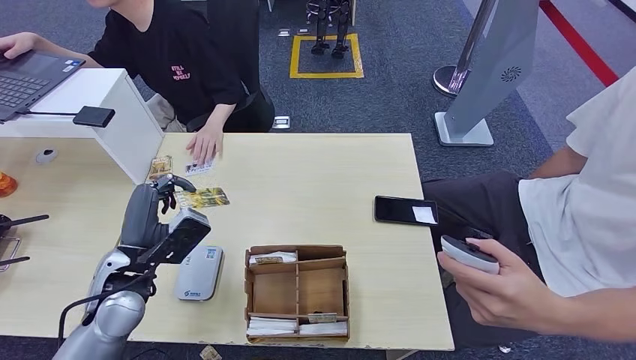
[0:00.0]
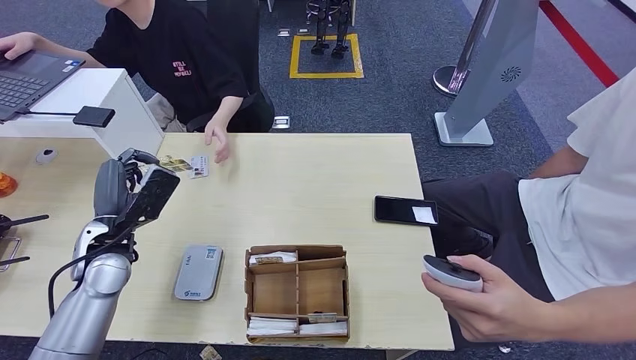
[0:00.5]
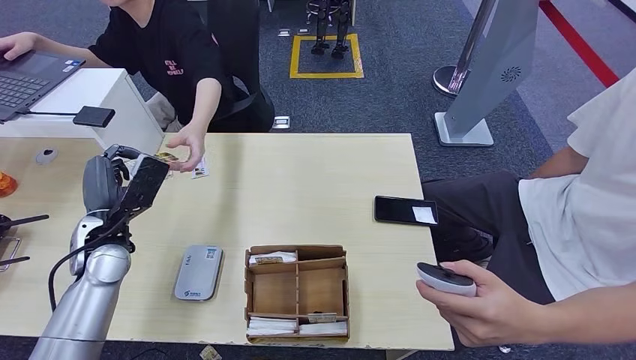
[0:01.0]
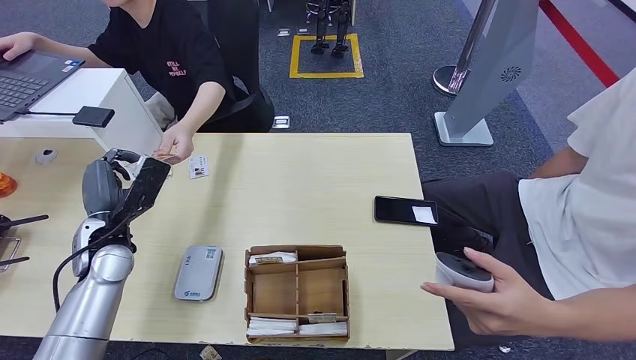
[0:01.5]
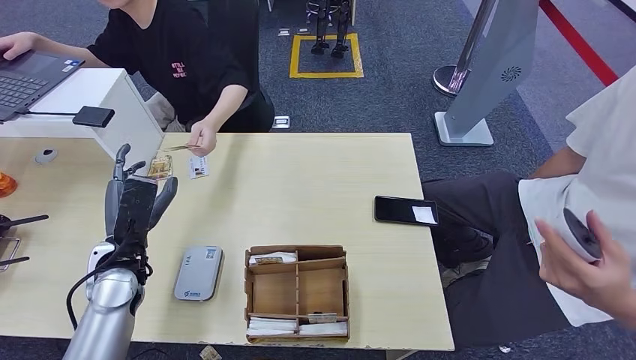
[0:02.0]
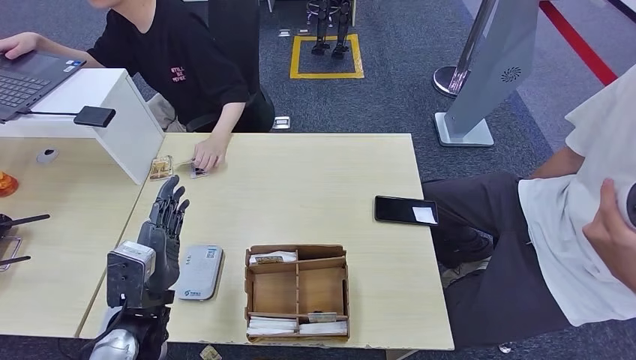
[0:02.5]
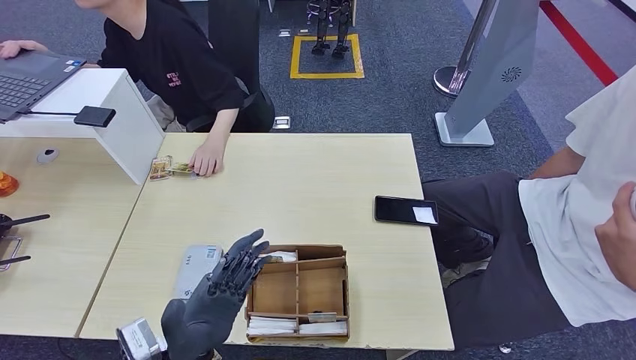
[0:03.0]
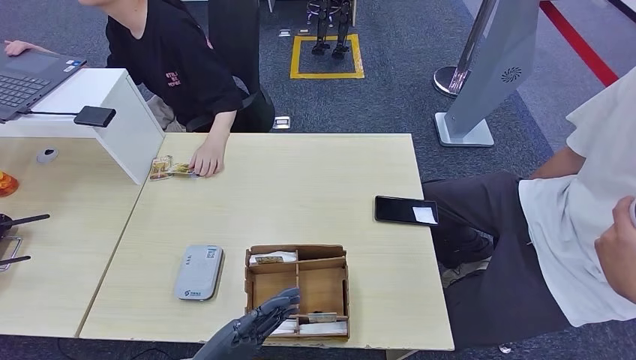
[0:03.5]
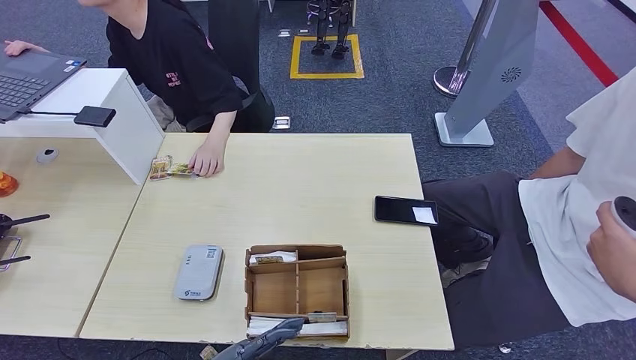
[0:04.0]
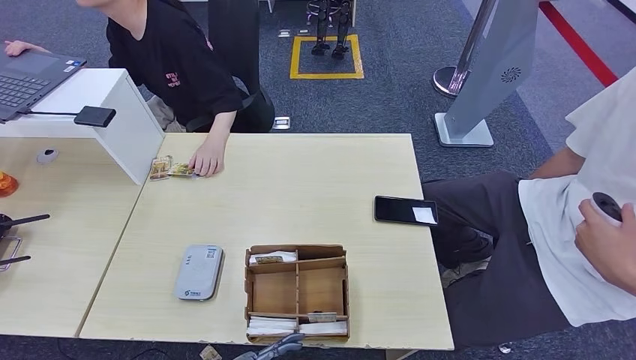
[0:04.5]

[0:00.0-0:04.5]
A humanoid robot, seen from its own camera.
Step, 0.0 to 4.5 s: Hand the room key to the person.
2.0 to 4.5 s: The left hand moves backward and to the right, some 20 cm.

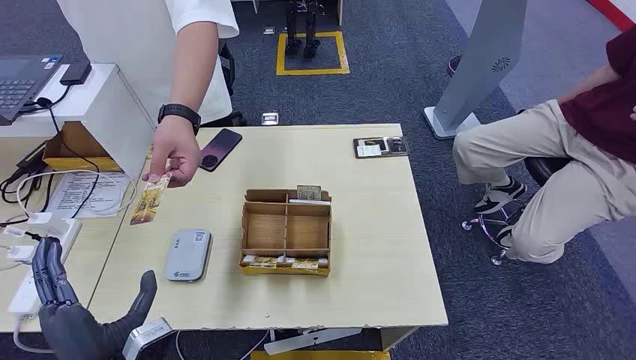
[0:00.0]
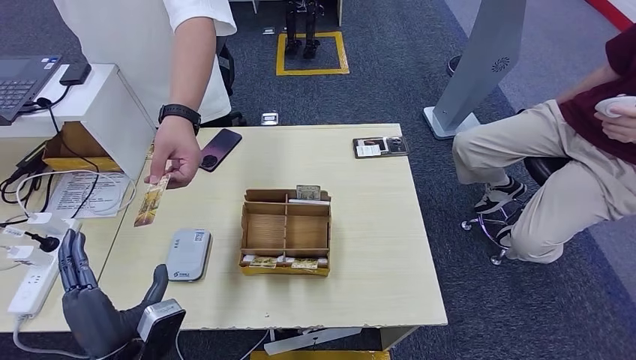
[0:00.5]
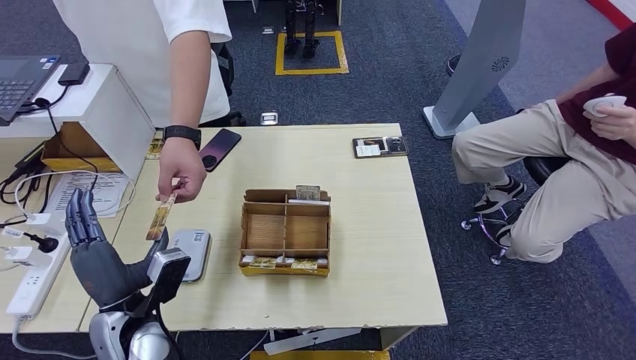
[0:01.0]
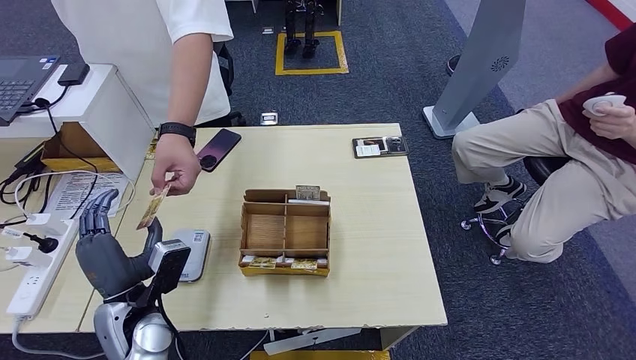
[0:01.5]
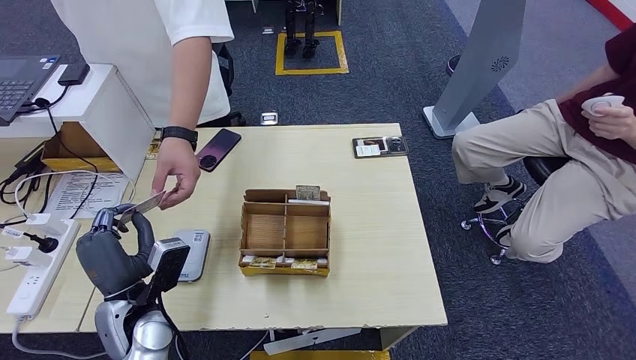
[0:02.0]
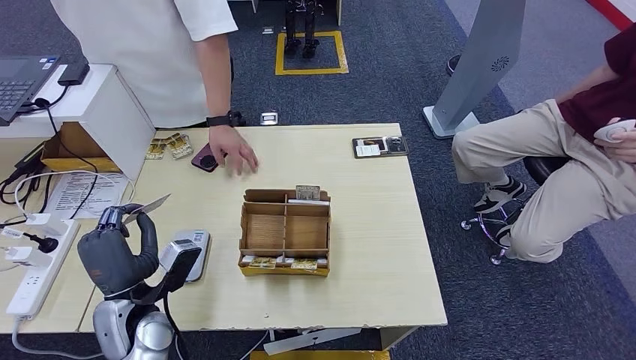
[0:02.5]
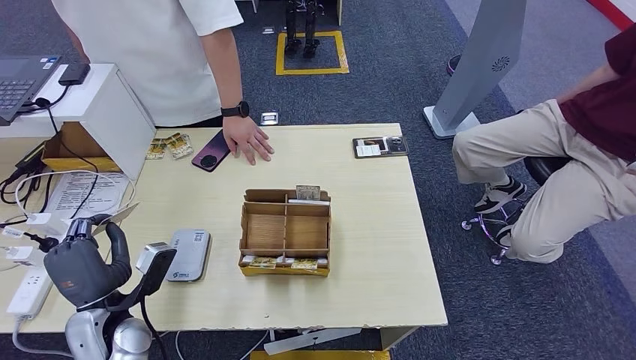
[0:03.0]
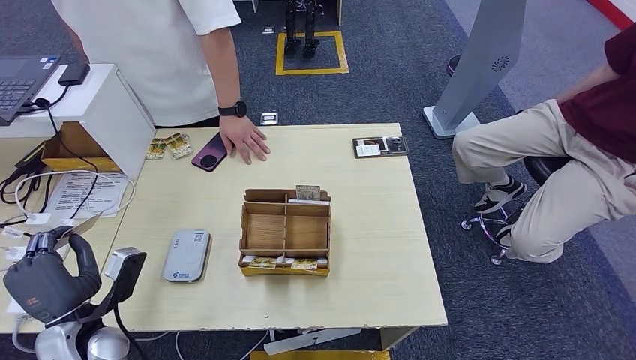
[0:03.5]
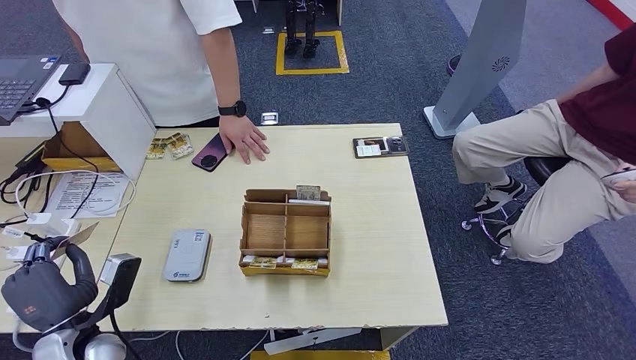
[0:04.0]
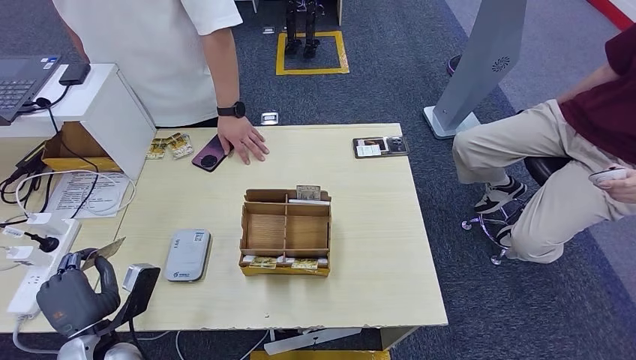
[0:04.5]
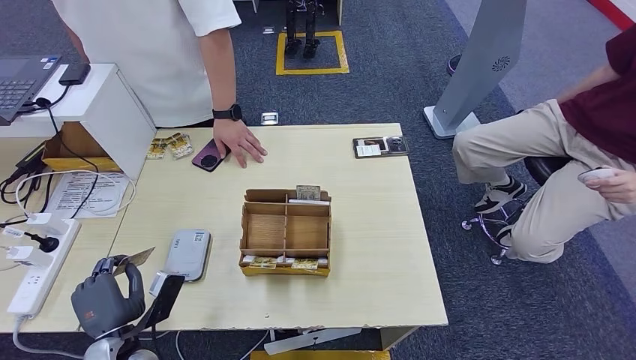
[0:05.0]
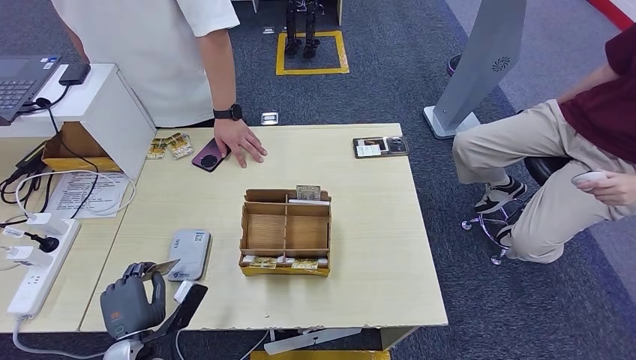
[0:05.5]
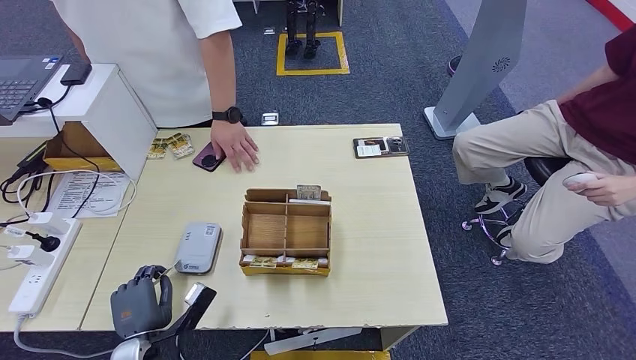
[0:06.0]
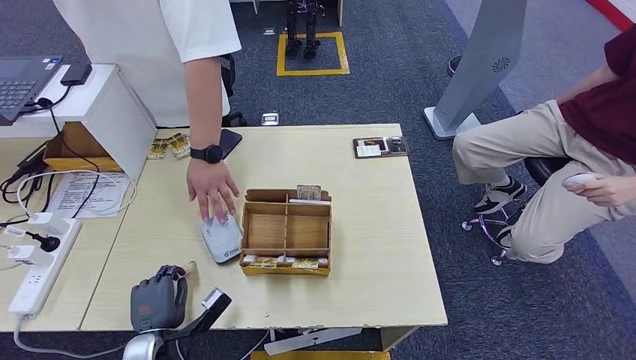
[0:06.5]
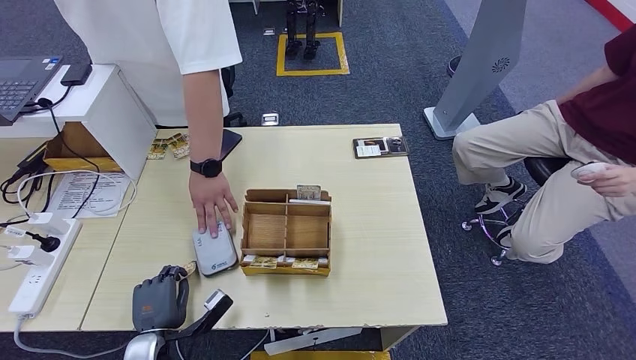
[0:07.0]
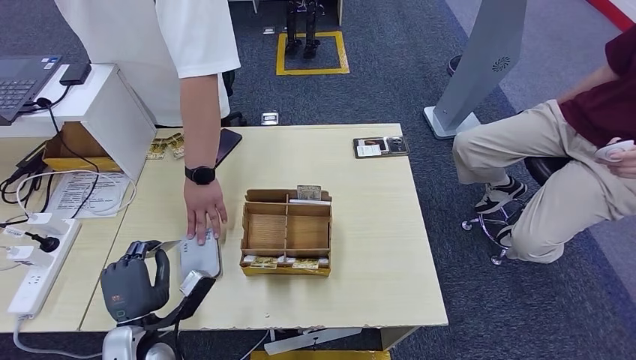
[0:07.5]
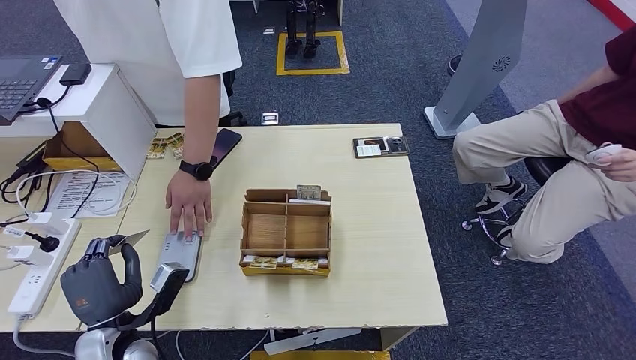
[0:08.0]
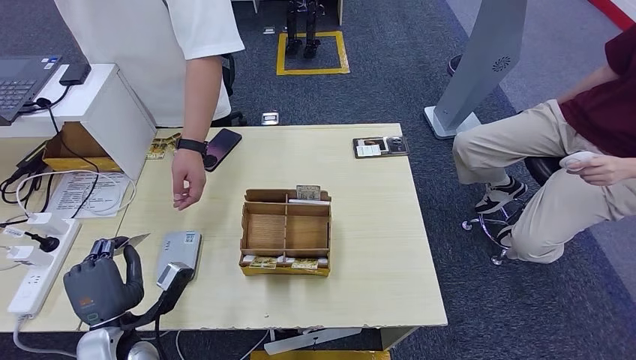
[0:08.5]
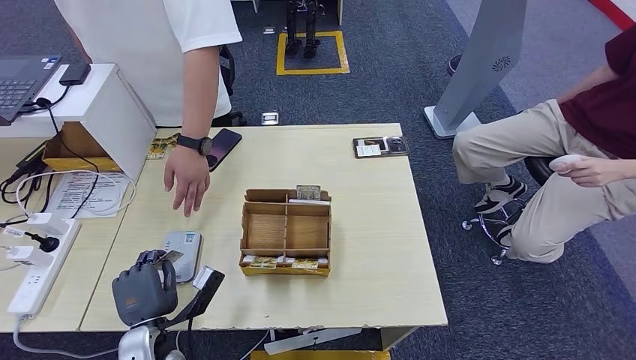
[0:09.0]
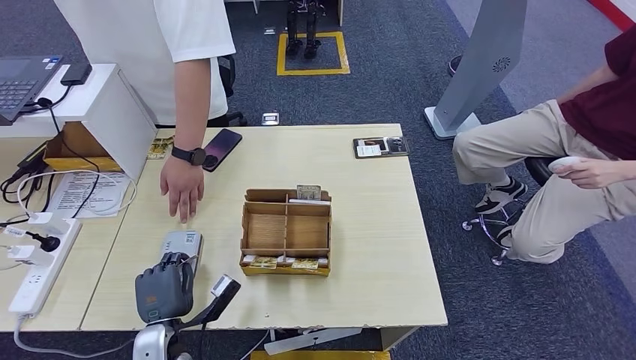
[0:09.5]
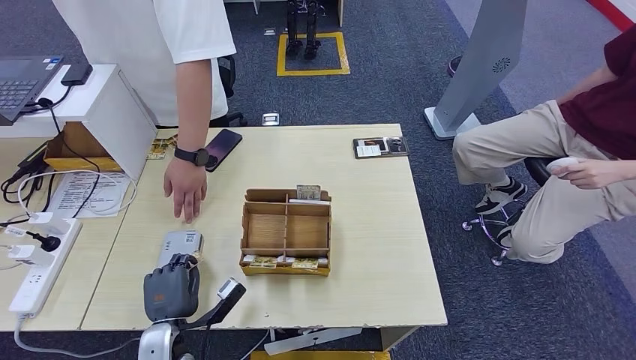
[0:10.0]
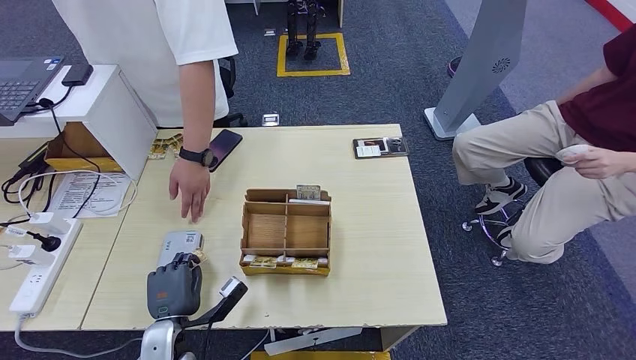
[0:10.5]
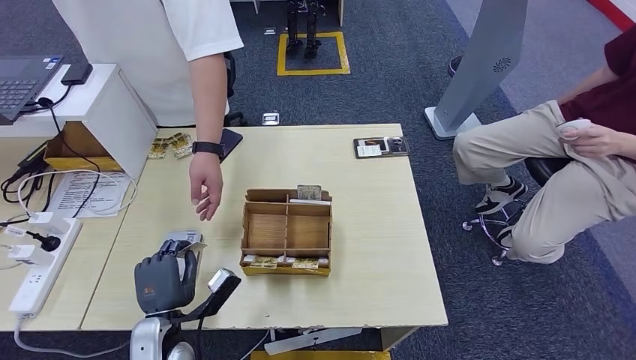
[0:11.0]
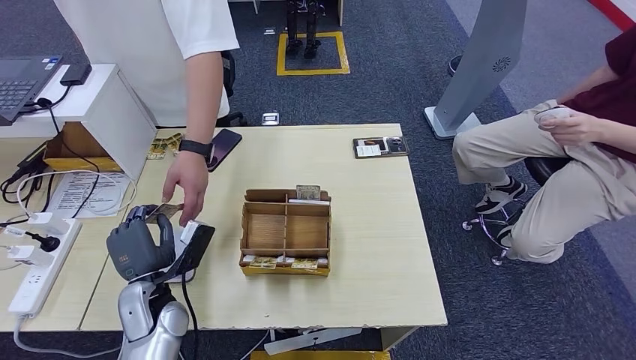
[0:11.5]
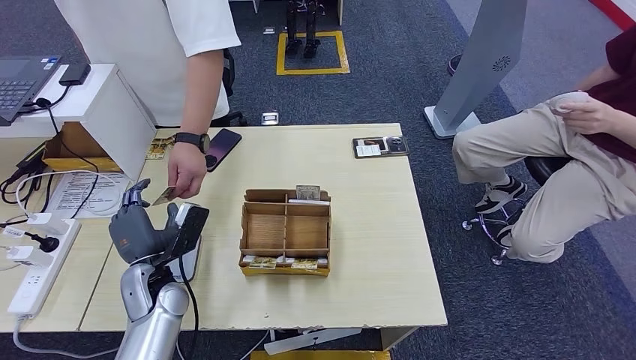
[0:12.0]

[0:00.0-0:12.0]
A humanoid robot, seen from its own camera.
Step, 0.0 to 2.0 s: Take the ID card from the person's hand.
Step, 2.5 to 10.5 s: Place the ID card on the card reader.
2.0 to 4.0 s: The left hand travels to the left by some 10 cm.
4.0 to 6.0 s: The left hand is displaced downward and to the right by about 10 cm.
6.0 to 8.0 s: The left hand goes some 10 cm upward.
8.0 to 10.0 s: The left hand heads downward, covering about 10 cm.
10.0 to 12.0 s: The left hand is displaced upward and forward by some 15 cm.

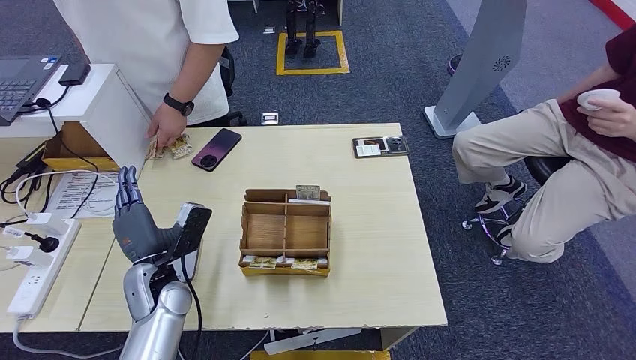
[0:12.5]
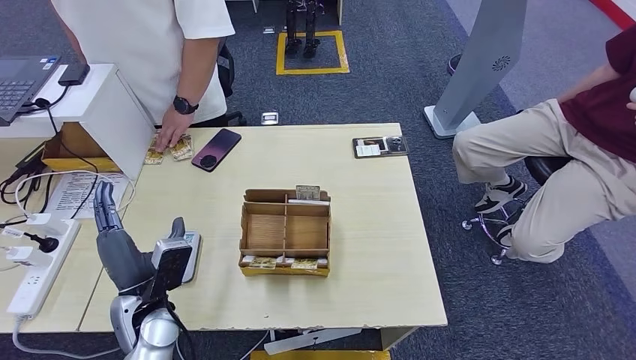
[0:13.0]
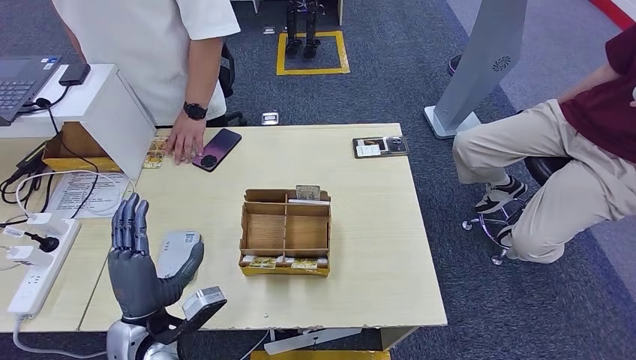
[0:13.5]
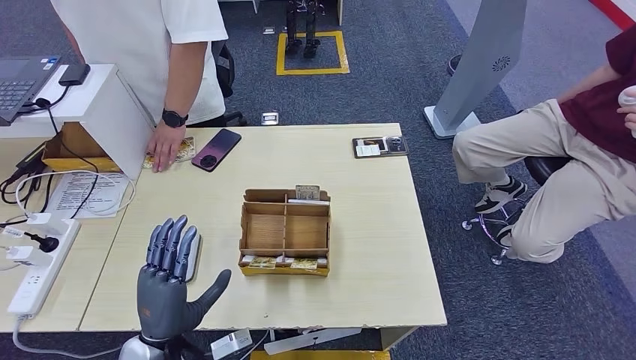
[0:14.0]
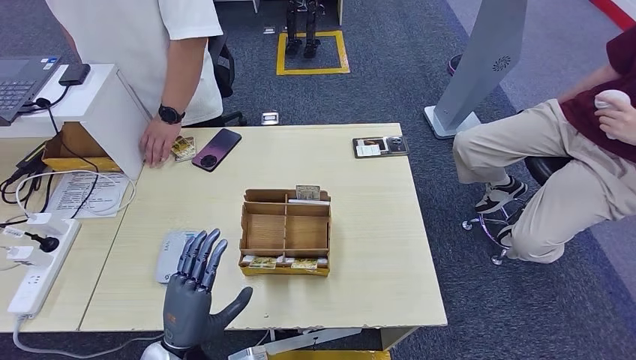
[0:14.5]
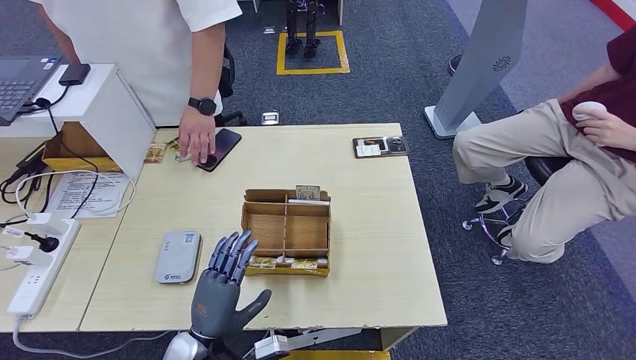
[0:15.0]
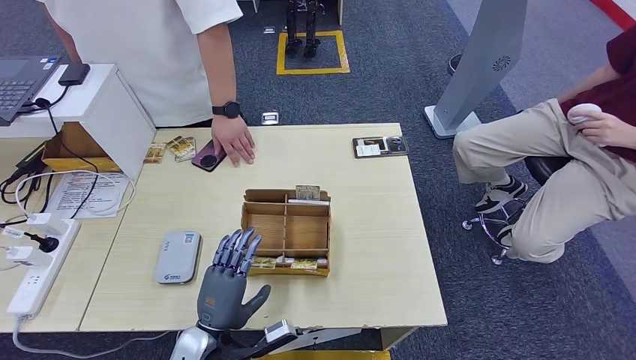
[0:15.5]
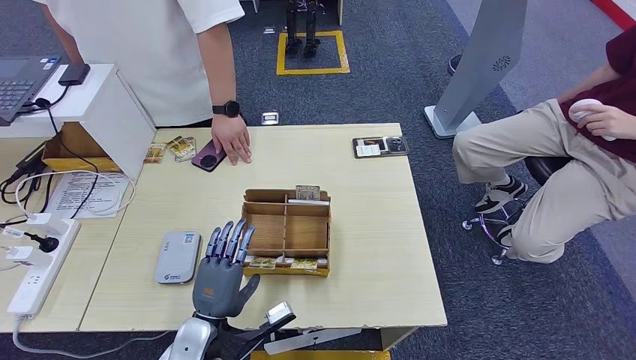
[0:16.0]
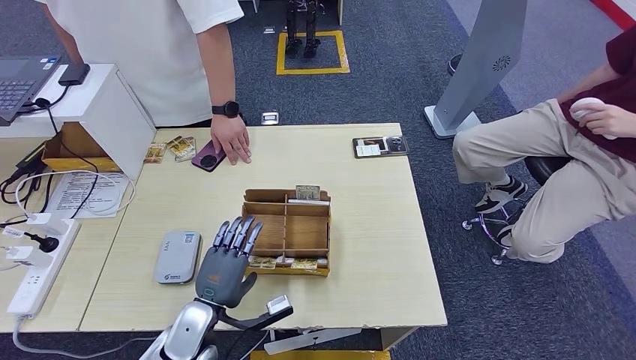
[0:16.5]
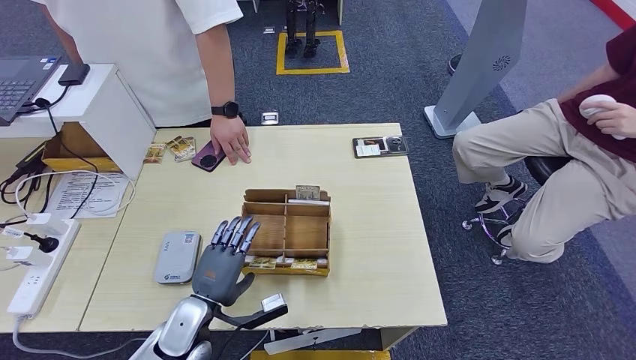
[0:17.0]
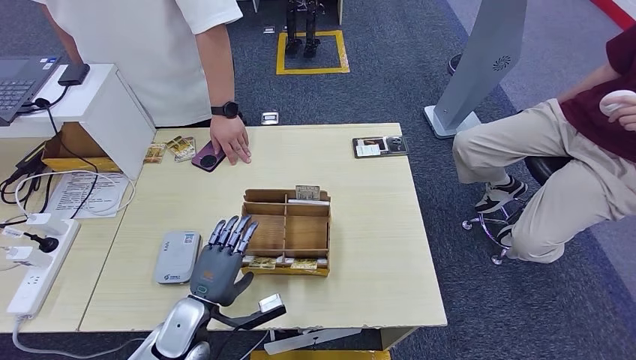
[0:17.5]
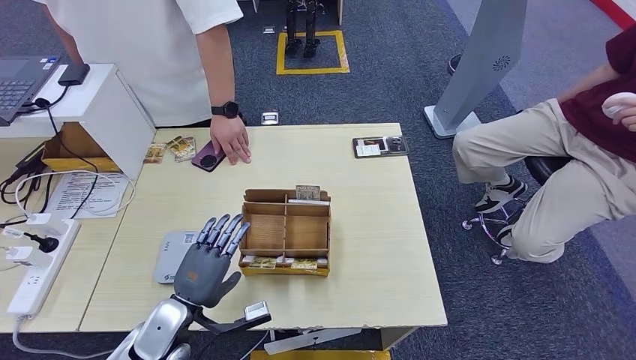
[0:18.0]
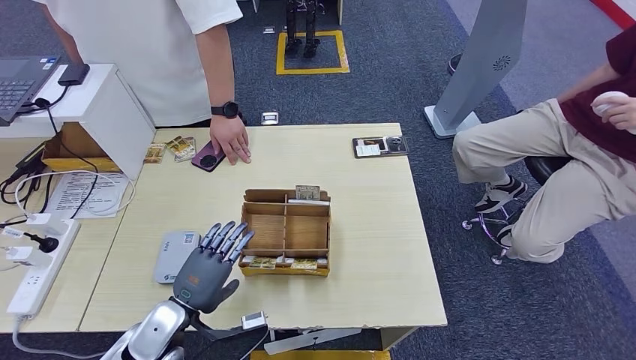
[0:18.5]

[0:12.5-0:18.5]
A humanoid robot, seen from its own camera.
12.5 to 14.5 s: The left hand shifts about 15 cm backward.
14.5 to 16.5 s: The left hand travels forward by about 5 cm.
16.5 to 18.5 s: The left hand is displaced to the left by roughly 5 cm.
